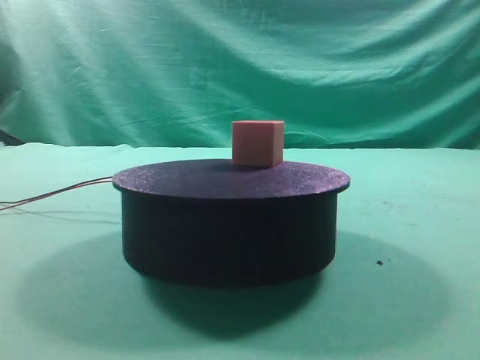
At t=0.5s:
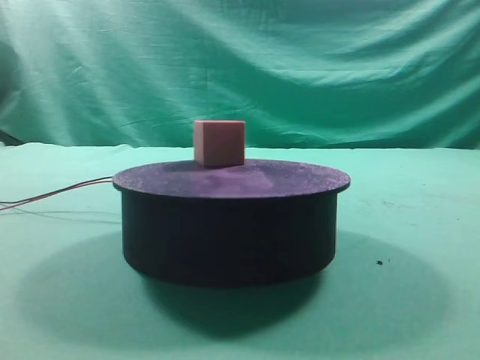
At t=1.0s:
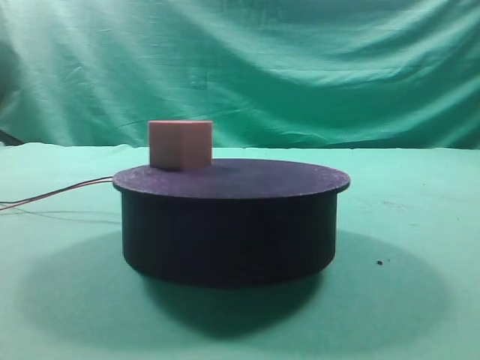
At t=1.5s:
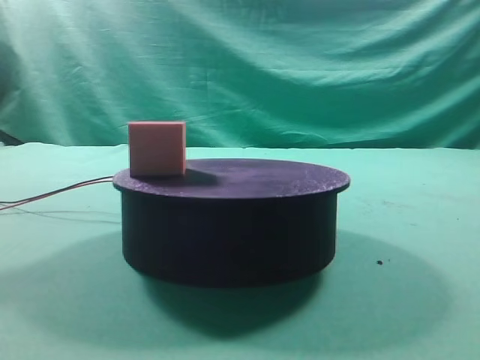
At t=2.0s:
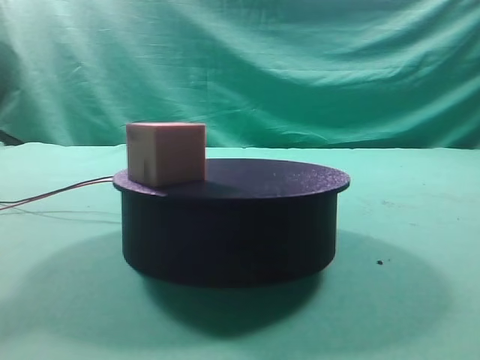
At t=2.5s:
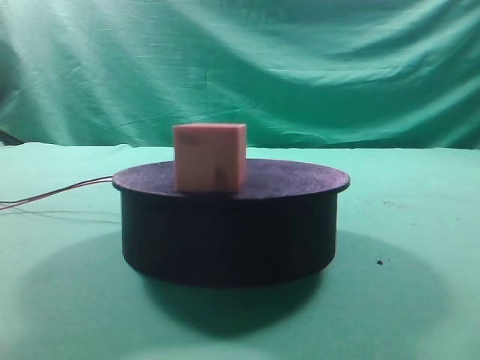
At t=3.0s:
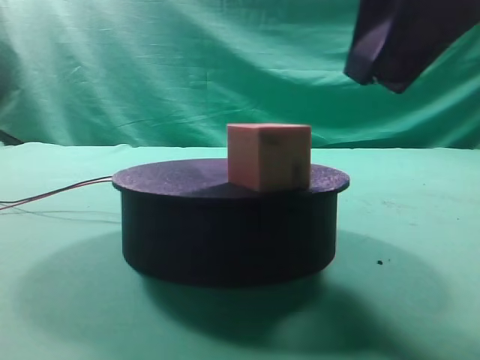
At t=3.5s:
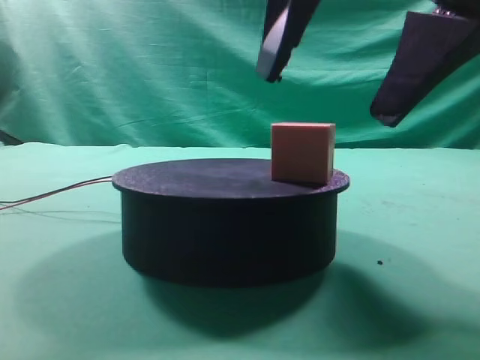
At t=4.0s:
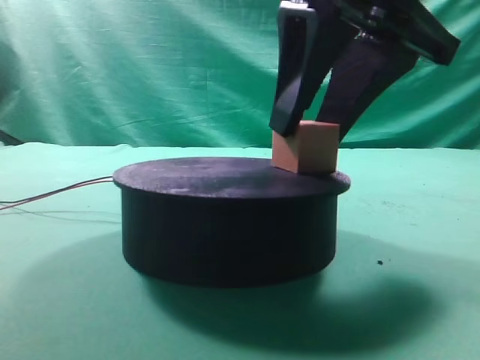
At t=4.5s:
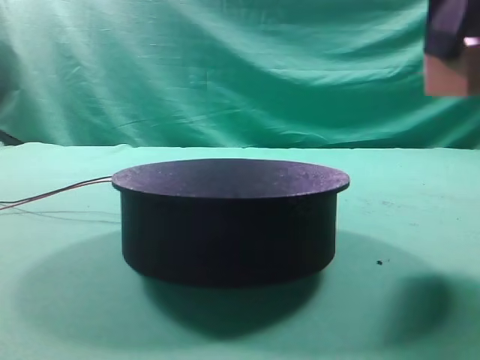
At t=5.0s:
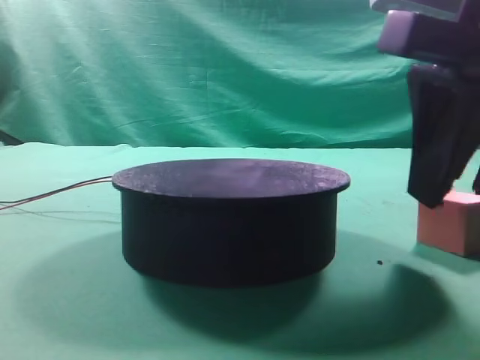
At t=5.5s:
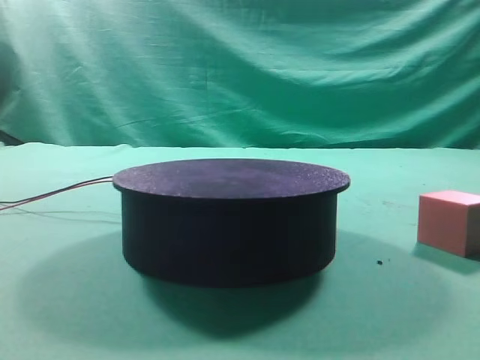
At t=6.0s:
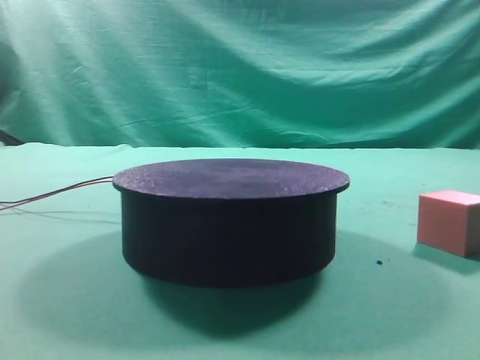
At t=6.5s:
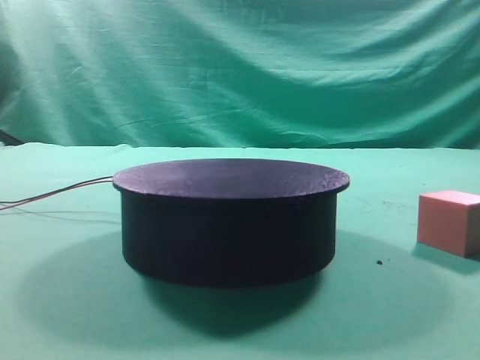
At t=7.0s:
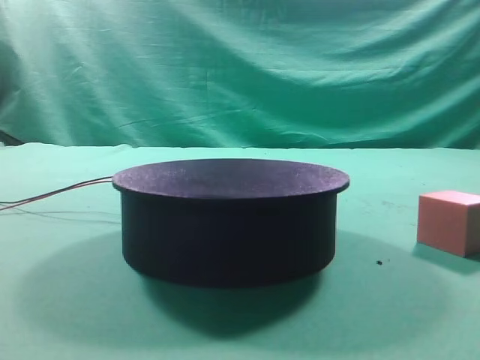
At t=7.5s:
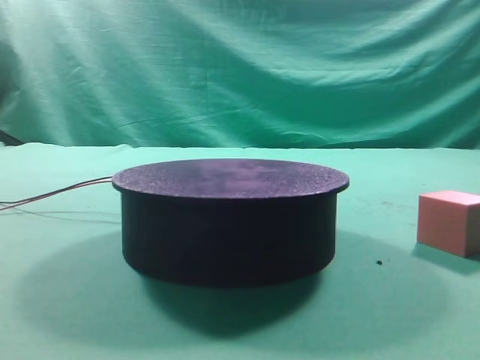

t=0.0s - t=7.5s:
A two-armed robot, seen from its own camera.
Task of the whole recording: grasp the rotating cube-shaped block on the turntable and place it on the table.
Step, t=0.0s - t=4.0s: Grasp the rotating cube-shaped block on the turntable.
Step, t=4.5s - t=5.0s: Place the cube on the desk.
